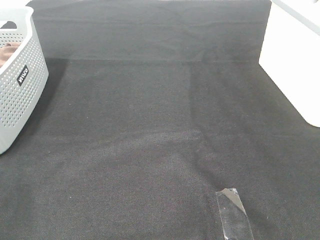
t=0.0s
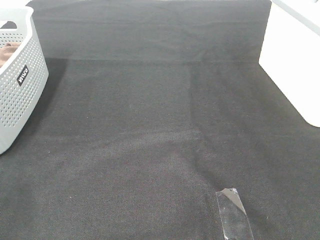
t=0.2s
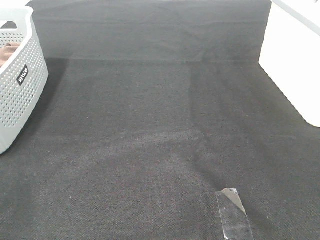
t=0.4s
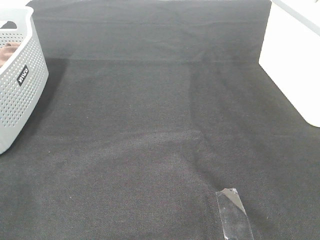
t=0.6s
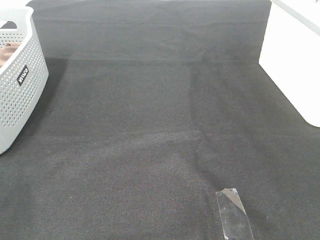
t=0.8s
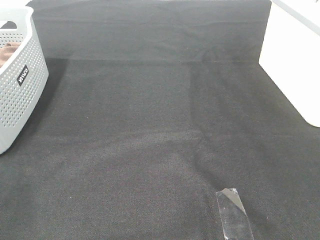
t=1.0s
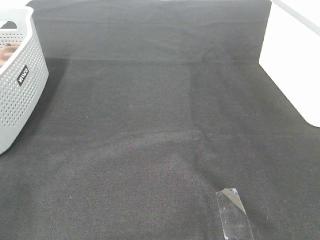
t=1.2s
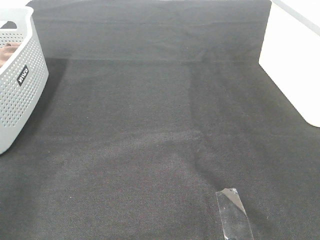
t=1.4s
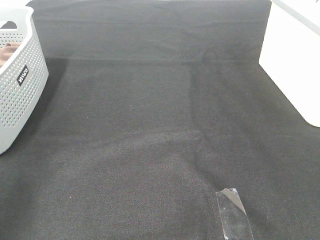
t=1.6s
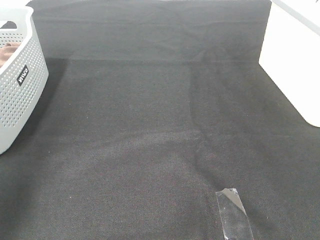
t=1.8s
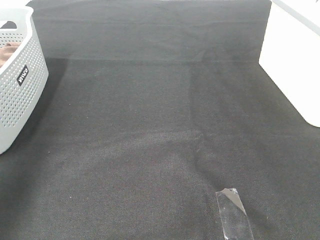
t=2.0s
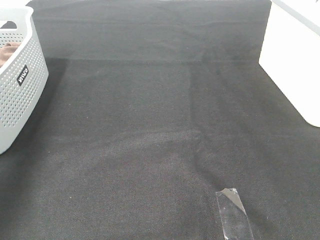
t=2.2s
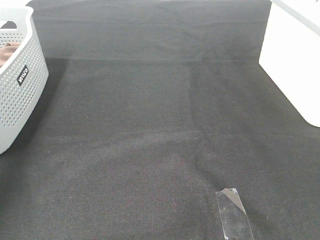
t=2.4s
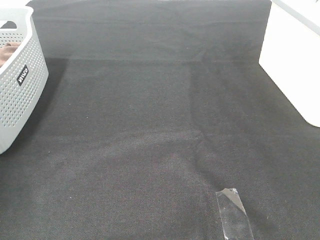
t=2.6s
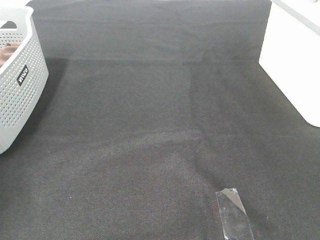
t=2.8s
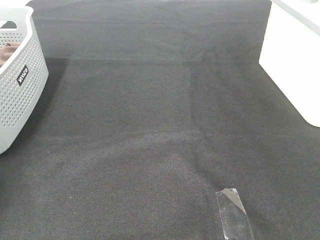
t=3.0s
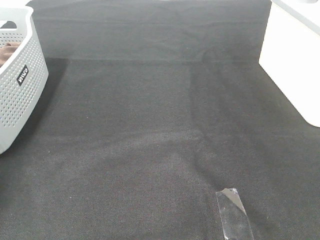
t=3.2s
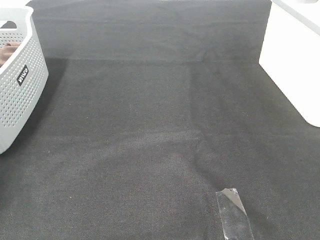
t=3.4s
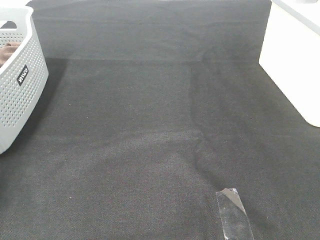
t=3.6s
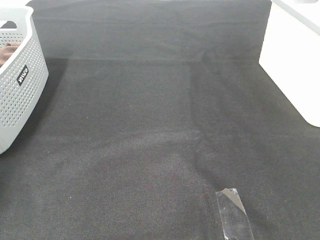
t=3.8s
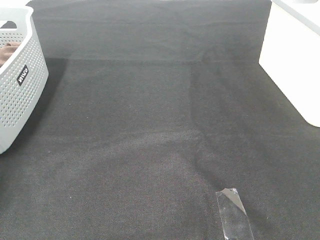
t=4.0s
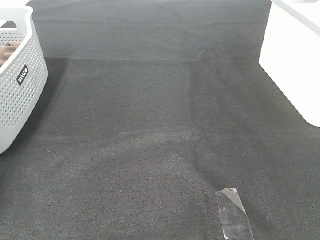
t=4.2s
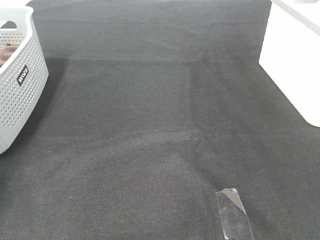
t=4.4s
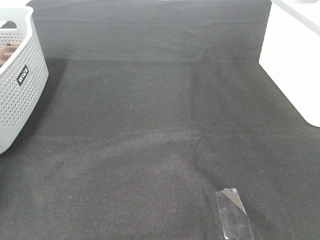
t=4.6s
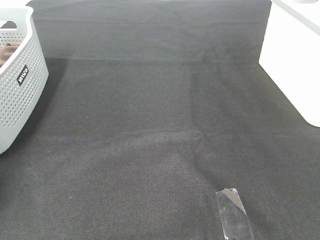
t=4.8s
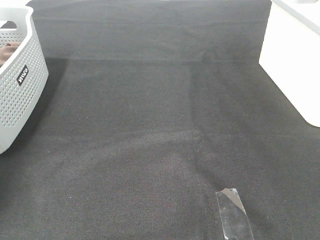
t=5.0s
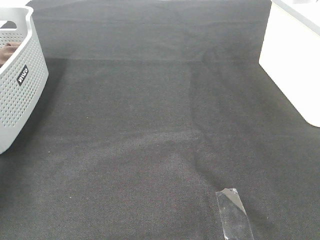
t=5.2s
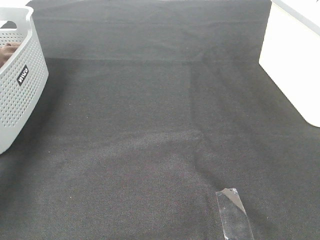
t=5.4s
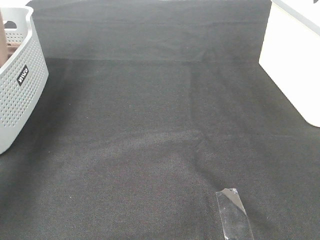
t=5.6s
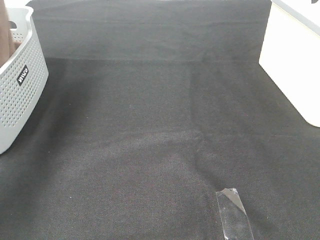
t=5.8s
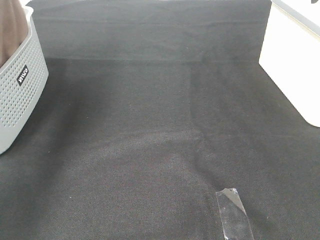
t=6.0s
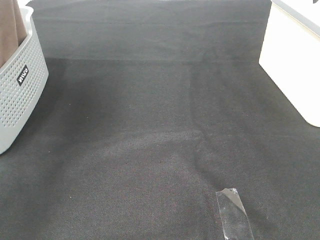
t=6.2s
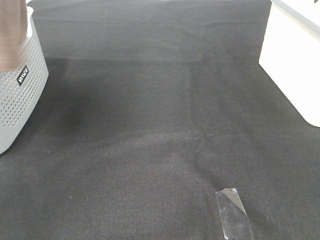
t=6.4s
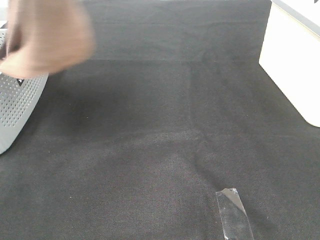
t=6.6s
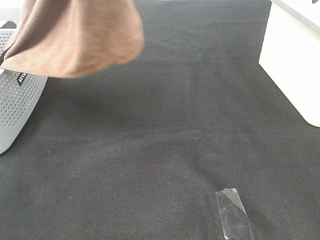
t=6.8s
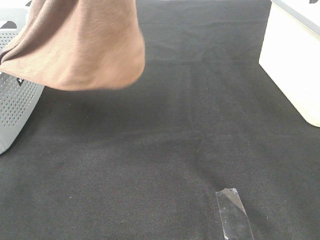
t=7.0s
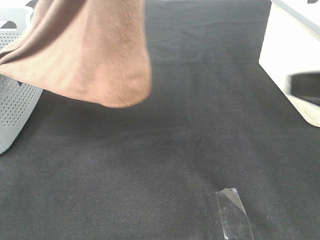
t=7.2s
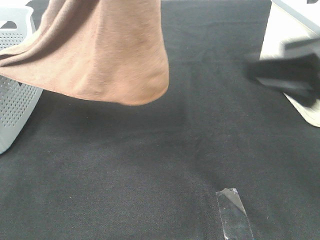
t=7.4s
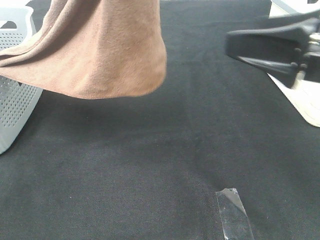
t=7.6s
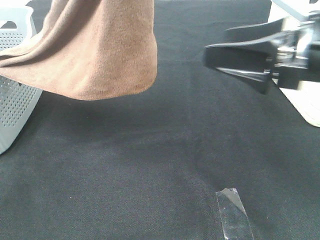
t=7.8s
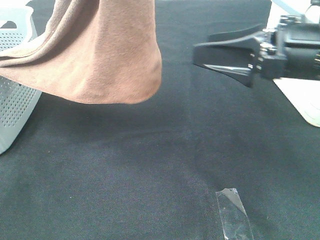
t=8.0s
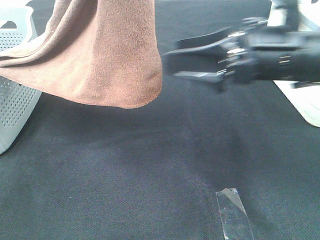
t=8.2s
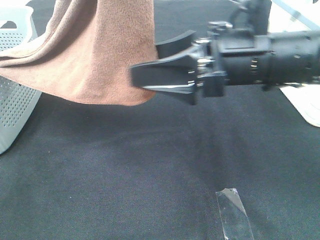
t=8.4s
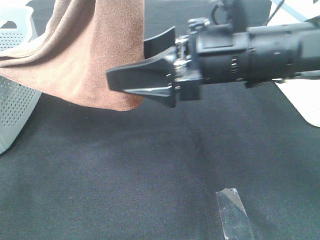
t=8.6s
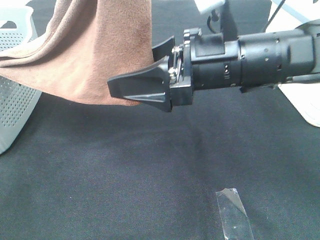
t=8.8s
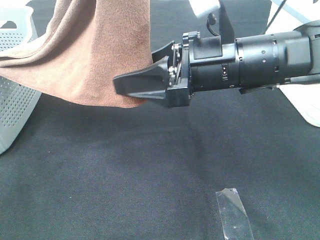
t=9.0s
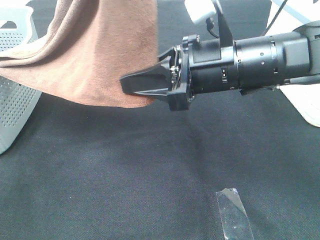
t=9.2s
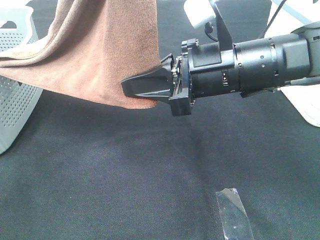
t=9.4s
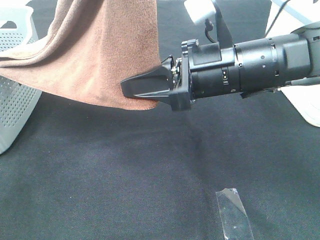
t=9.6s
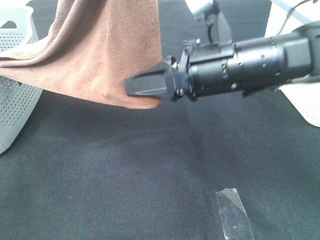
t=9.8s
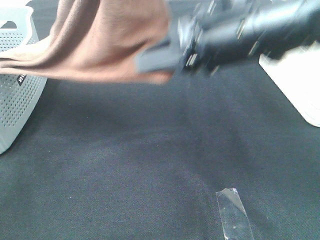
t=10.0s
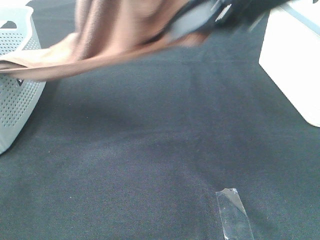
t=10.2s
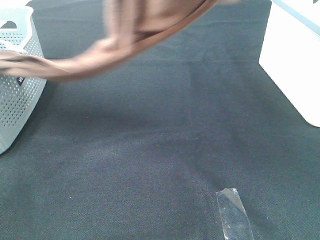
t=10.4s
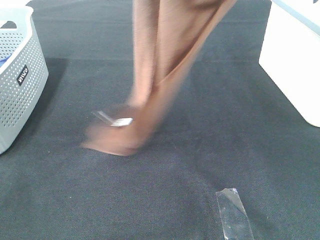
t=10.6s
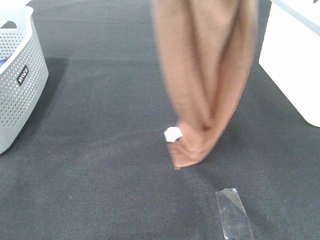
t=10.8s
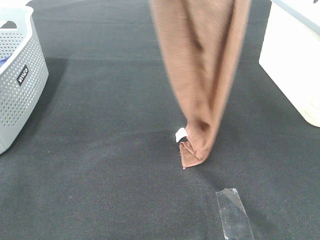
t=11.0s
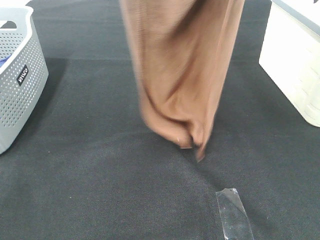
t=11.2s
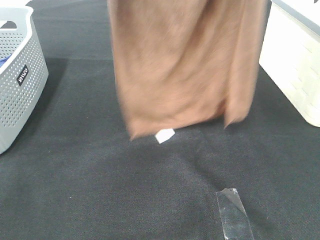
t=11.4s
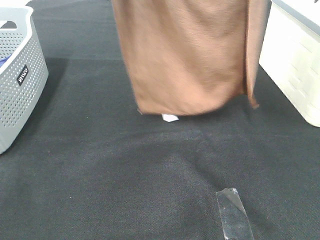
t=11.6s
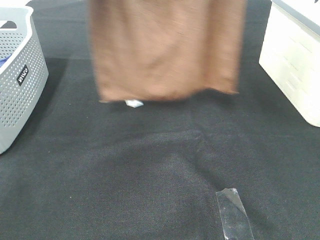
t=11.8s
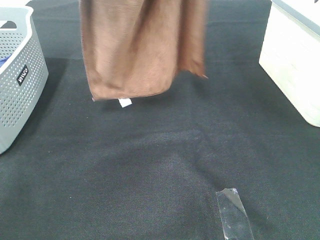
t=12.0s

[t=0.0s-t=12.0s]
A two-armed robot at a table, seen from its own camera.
Task of the whole recording: Remove the towel and place it.
Step, t=6.2s to t=9.0s: Right hand: grab a corner of the brown towel and straighten it.
t=1.6s to t=3.0s: The left gripper heads forward, covering approximately 30 cm.
t=4.4s to t=6.0s: The left gripper goes roughly 30 cm upward and to the right.
t=6.0s to t=7.6s: The right gripper is displaced forward and to the left by roughly 20 cm. The left gripper shifts approximately 25 cm to the right and backward.
t=7.6s to t=9.0s: The right gripper shifts some 15 cm to the left, forward and downward.
t=9.0s to t=10.4s: The right gripper heads upward, covering some 20 cm, and closes its fingers.
t=10.4s to t=12.0s: The right gripper travels upward and forward by roughly 10 cm. The left gripper moves forward and to the left, approximately 15 cm.

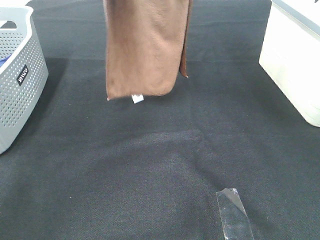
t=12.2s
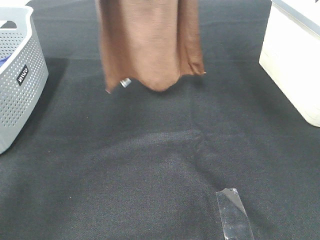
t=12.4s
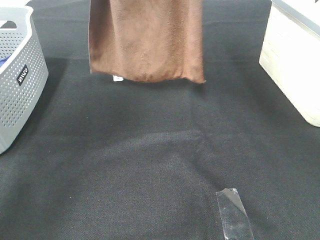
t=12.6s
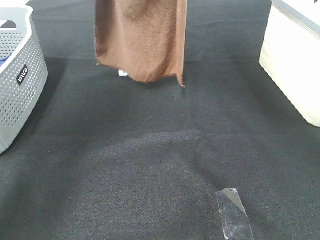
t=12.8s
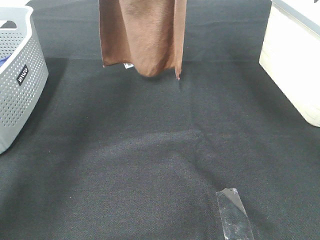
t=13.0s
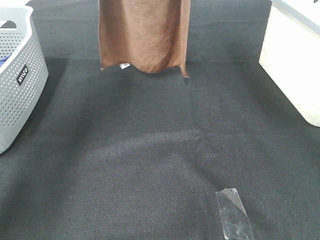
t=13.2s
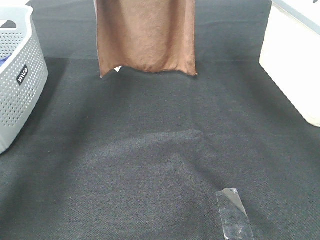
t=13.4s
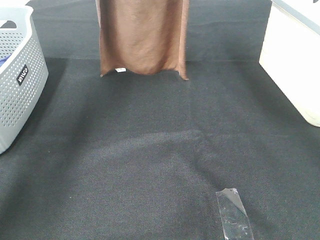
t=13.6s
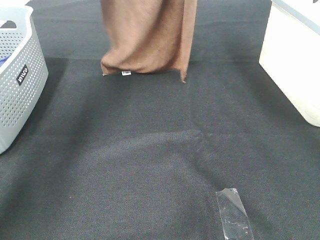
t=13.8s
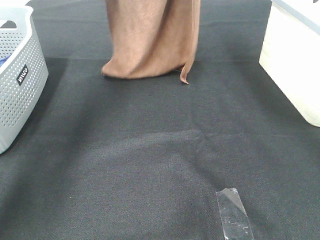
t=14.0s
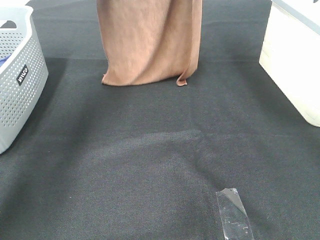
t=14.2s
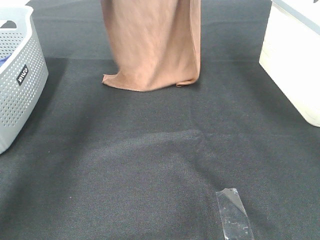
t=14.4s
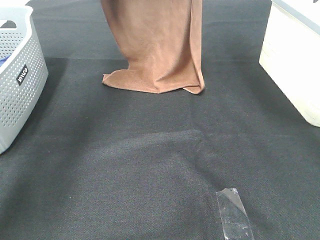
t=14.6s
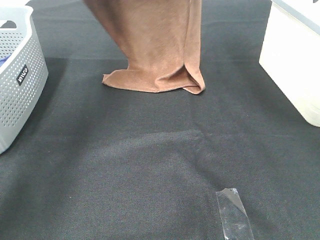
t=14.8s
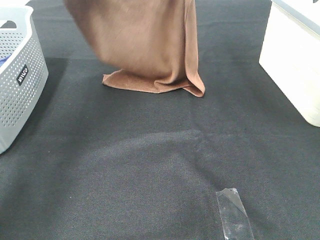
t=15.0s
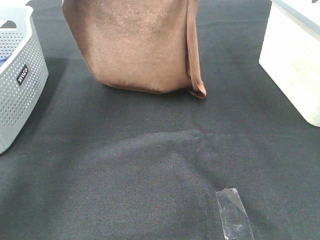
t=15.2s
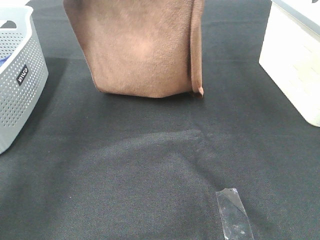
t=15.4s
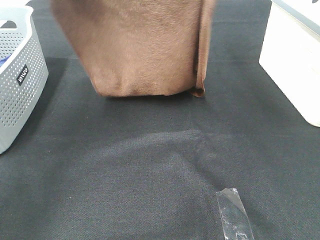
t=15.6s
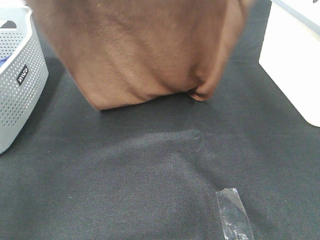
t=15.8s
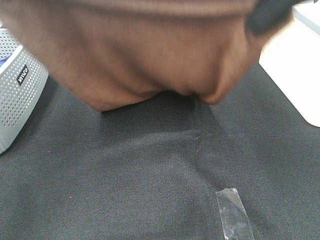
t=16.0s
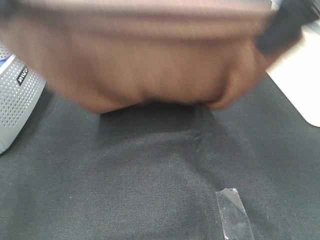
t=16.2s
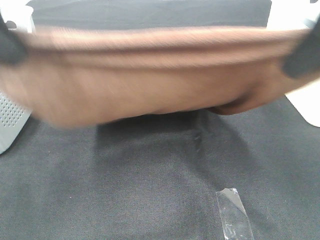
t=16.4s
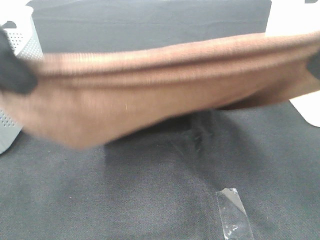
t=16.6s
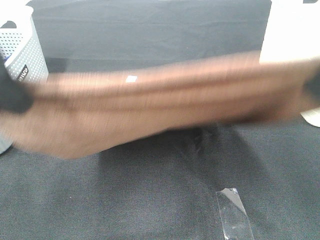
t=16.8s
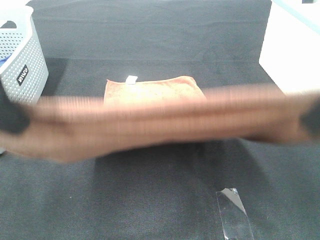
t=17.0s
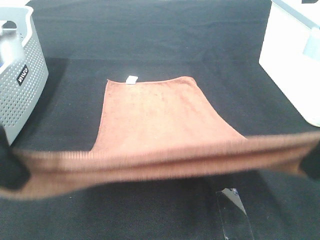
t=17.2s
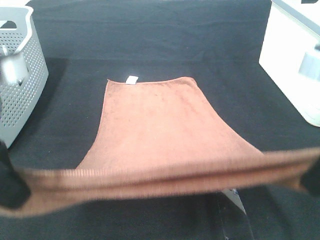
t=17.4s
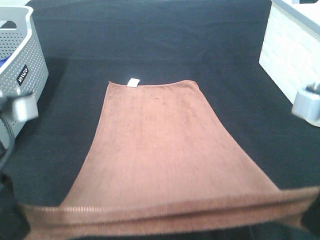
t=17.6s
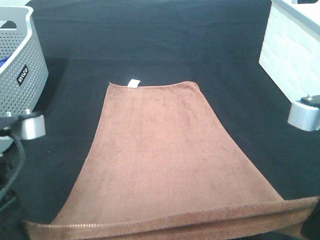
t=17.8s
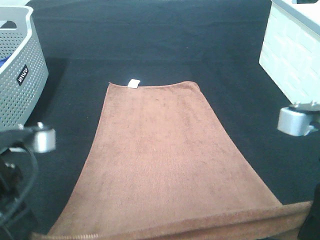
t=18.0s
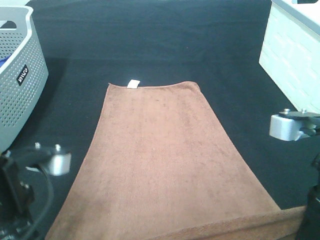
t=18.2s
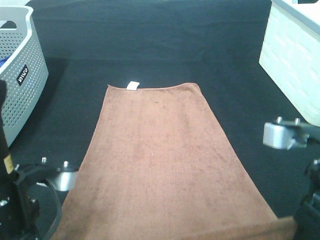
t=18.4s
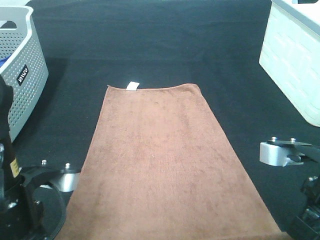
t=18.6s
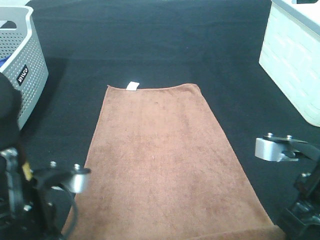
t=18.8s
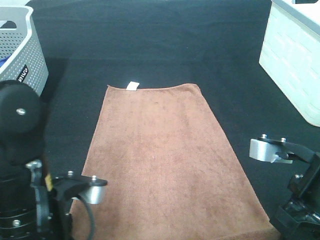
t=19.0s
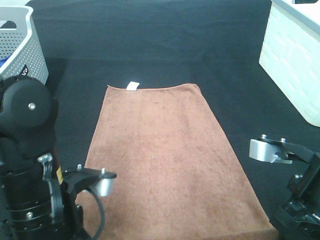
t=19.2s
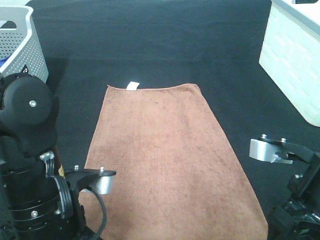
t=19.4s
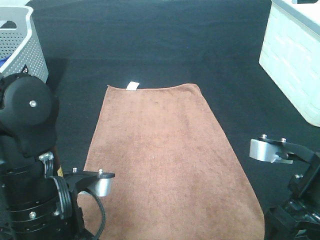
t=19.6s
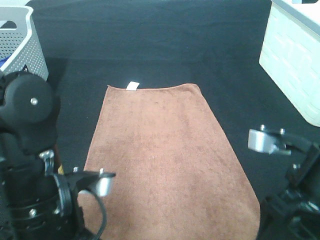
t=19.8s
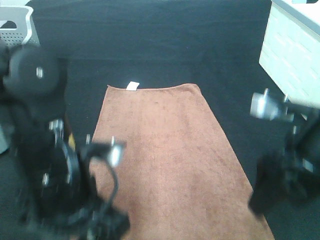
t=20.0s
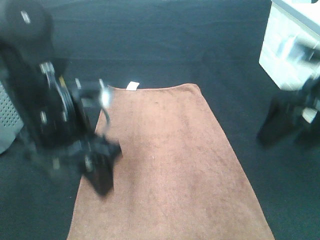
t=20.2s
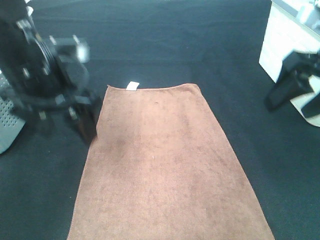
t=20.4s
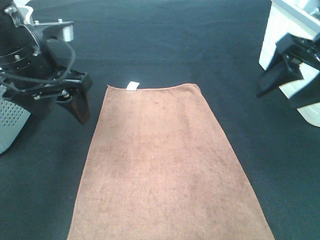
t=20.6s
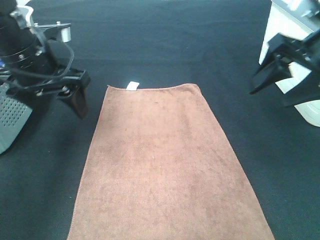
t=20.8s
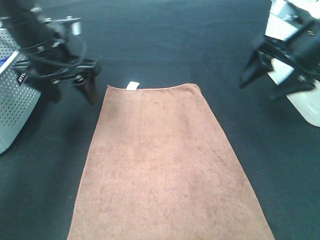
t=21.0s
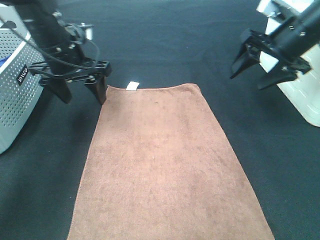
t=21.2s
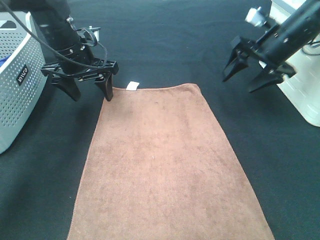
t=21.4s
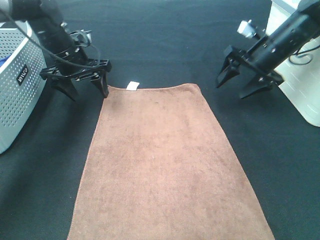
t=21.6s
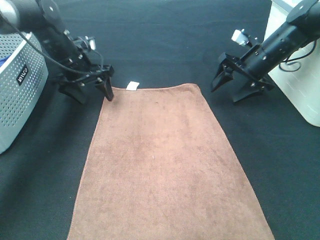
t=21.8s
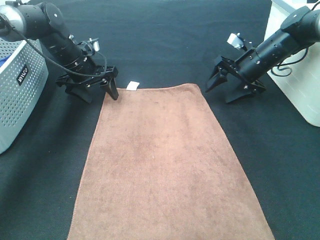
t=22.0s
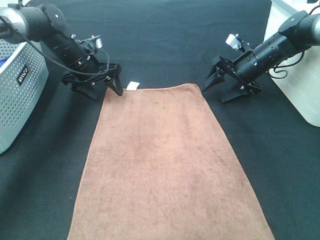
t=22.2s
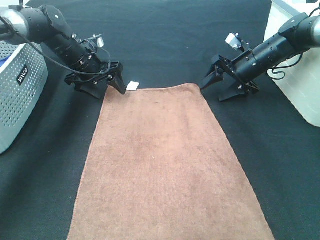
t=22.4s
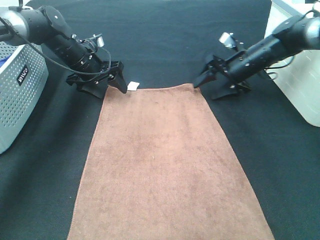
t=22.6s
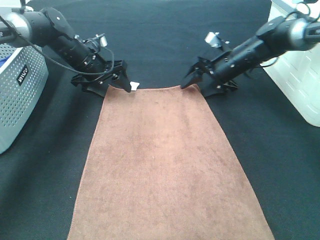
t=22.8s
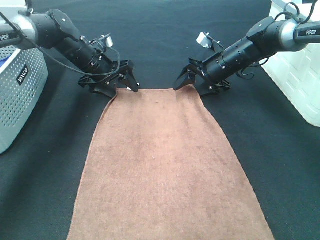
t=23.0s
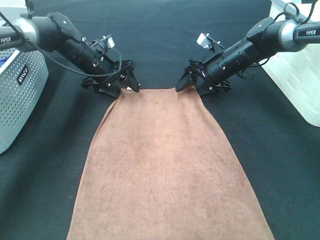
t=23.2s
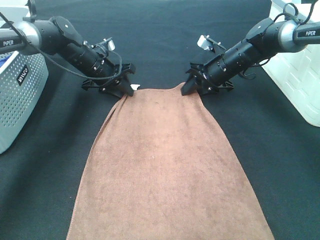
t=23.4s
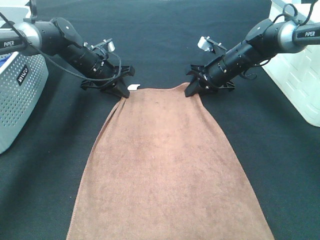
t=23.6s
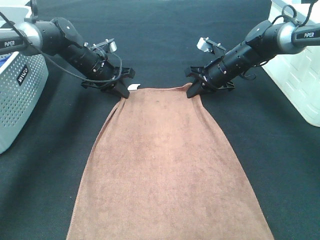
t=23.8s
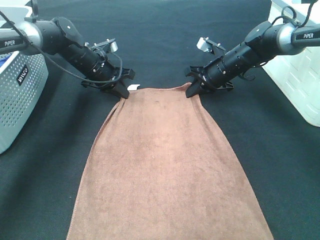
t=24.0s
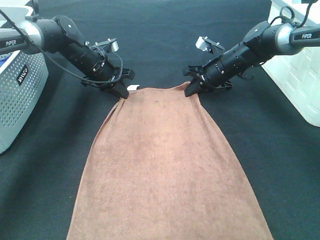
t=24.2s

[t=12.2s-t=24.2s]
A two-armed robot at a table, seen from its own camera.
Task of the whole recording: Remove the towel and place it.
Step, t=12.2s to t=15.0s: Left hand: spread the brown towel flat on the table.
Step, t=12.2s to t=15.0s: Right hand: spread the brown towel flat on the table.
t=12.2s to t=13.8s: Both grippers travel together forward and downward, roughly 15 cm.
t=13.8s to t=15.2s: Both grippers move backward, roughly 10 cm.
t=15.2s to t=16.6s: The left gripper goes roughly 20 cm backward. The right gripper heads backward and to the right, covering about 20 cm.
t=16.6s to t=18.2s: The two grippers go about 15 cm downward.
t=18.2s to t=19.8s: The left gripper moves to the right, about 5 cm, and opens up. The right gripper opens up.
t=19.8s to t=21.2s: The two grippers go about 25 cm forward.
t=21.2s to t=22.6s: The left gripper moves forward and downward, approximately 15 cm. The right gripper heads downward and forward, covering approximately 15 cm.
t=22.6s to t=24.2s: The right gripper closes. Meanwhile the left gripper closes up.
